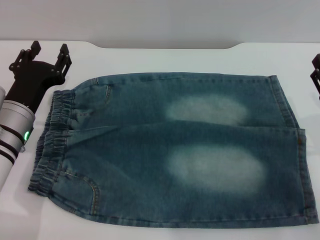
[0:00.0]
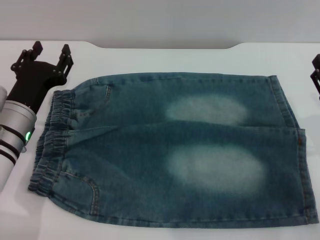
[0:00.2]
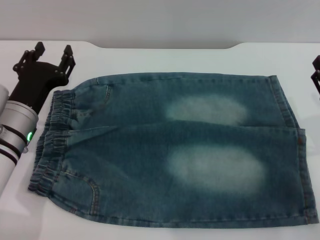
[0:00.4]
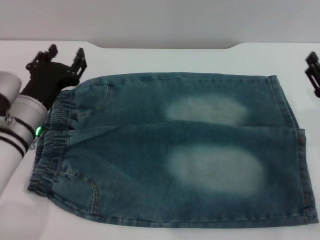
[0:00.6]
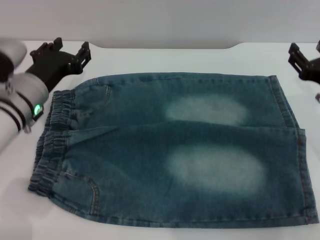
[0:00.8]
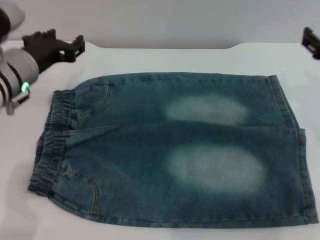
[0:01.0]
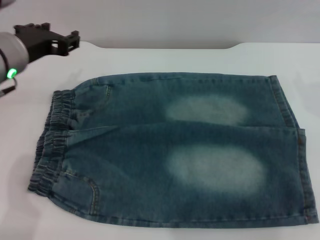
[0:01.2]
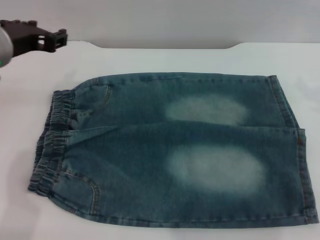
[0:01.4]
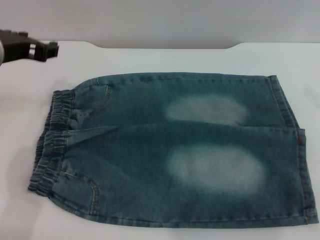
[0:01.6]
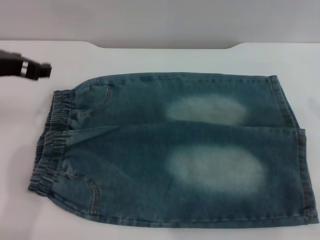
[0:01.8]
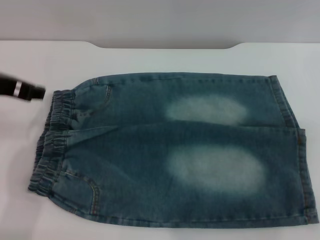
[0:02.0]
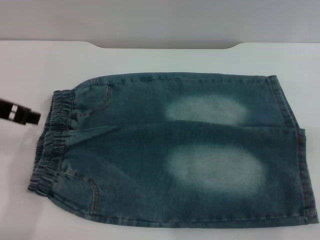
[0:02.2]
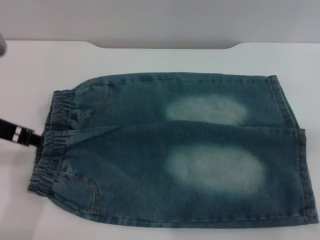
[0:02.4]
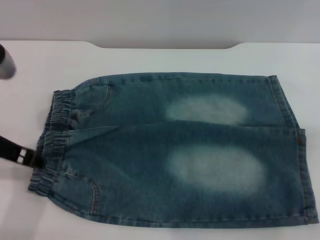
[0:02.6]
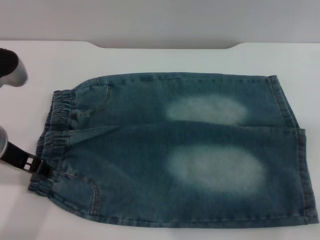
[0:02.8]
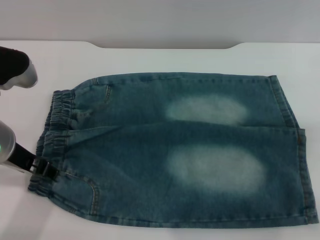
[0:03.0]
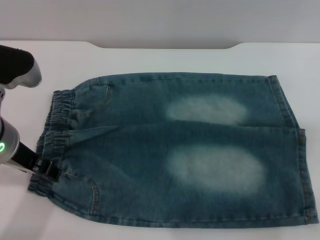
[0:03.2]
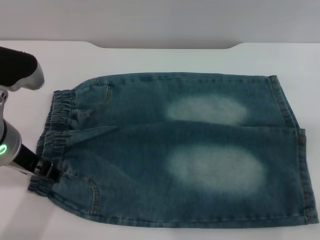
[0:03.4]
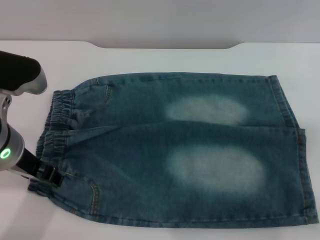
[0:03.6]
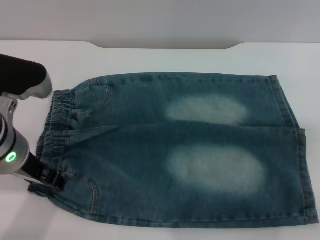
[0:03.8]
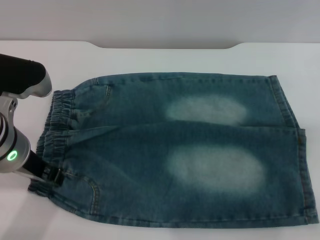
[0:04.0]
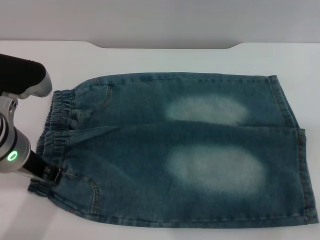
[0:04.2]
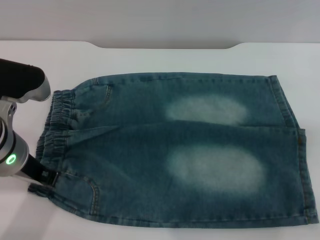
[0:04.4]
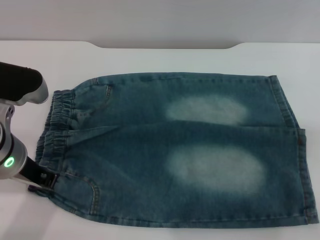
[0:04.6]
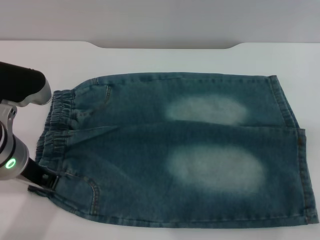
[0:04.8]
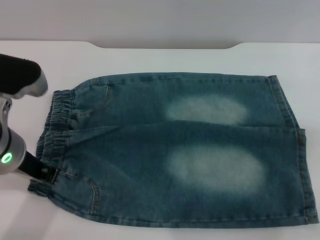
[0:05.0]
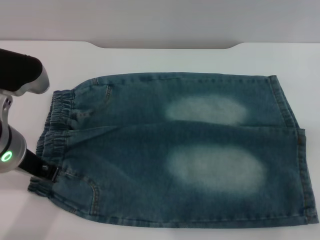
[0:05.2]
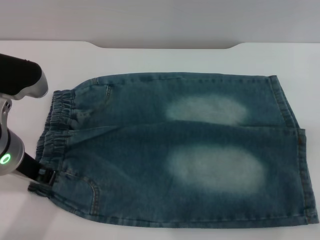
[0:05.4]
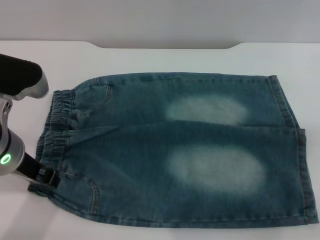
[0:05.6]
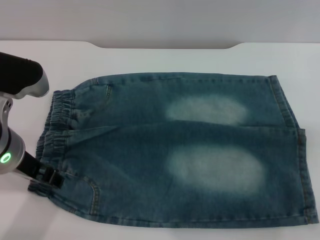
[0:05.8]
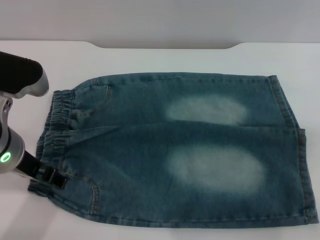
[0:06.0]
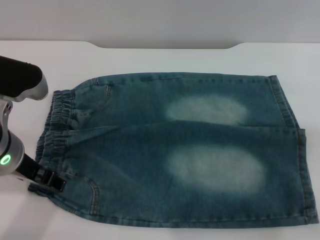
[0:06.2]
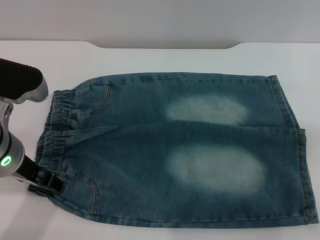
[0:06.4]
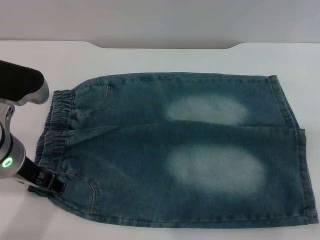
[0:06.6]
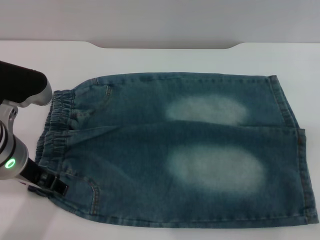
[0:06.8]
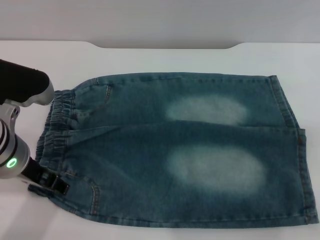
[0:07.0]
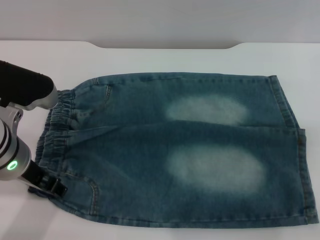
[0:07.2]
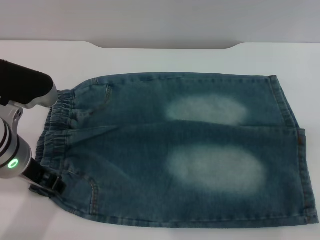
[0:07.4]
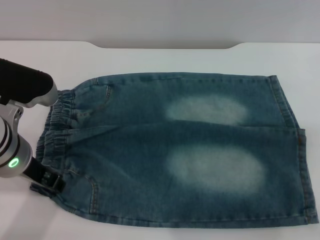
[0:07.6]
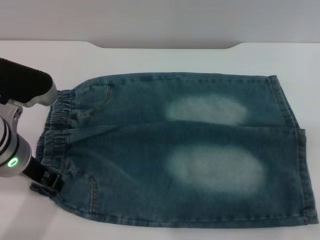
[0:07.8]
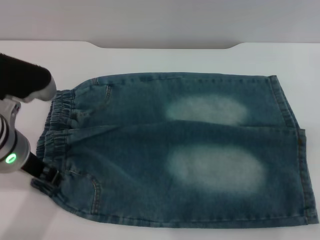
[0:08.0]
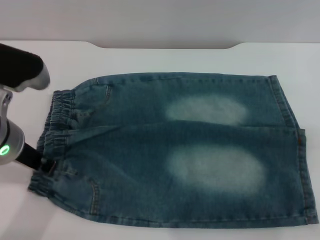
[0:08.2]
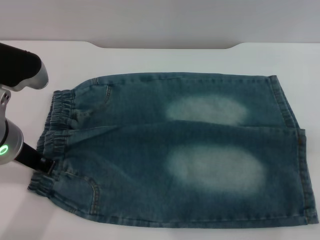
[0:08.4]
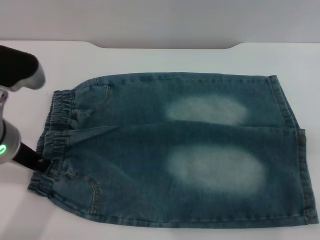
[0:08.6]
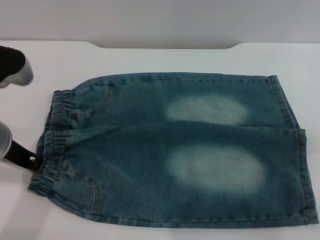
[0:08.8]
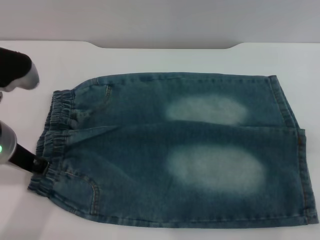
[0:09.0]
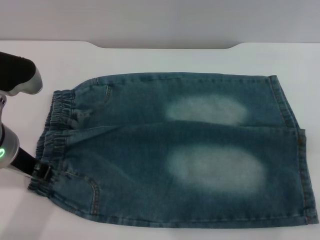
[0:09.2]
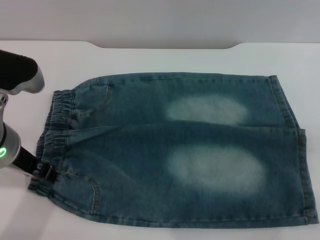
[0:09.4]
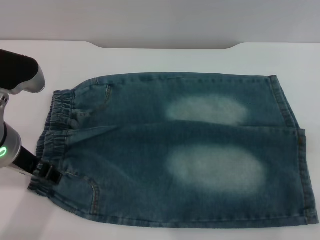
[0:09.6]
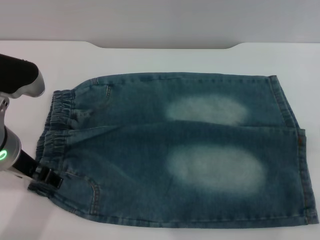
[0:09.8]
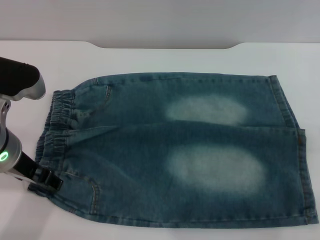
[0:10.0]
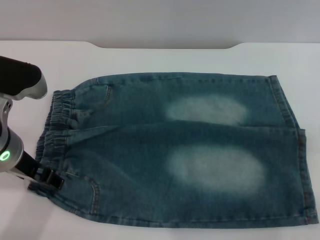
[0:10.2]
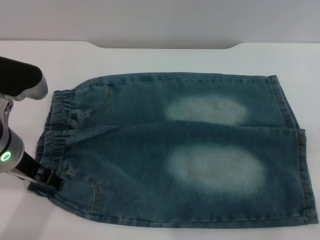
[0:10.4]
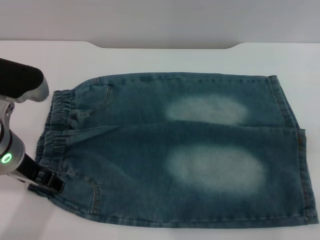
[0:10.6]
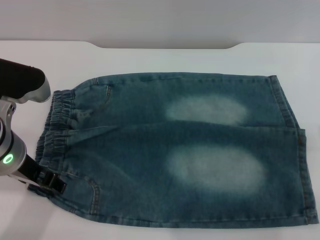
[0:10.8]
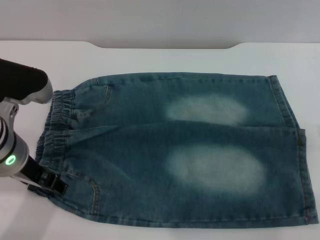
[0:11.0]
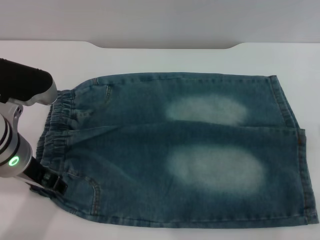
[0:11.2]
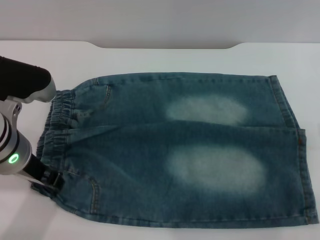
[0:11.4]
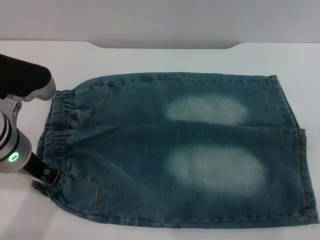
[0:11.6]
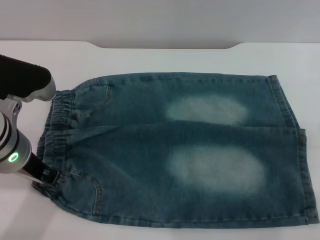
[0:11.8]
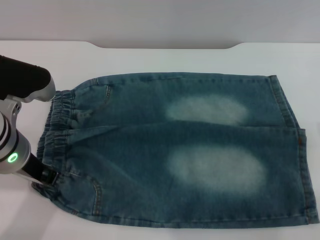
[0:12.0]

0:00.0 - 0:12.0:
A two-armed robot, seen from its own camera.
0:00.0 - 0:01.6: The left gripper shifts roughly 15 cm upward.
0:01.6 - 0:03.0: The left gripper heads backward, covering approximately 5 cm.
0:03.0 - 0:04.4: The left gripper closes its fingers.
0:04.4 - 0:06.0: The left gripper opens its fingers.
0:06.0 - 0:07.6: The grippers stay close to where they were, moving slightly.
0:07.6 - 0:09.0: The left gripper closes up.
0:09.0 - 0:10.4: The left gripper opens its fingers.
0:10.4 - 0:12.0: The left gripper closes up.

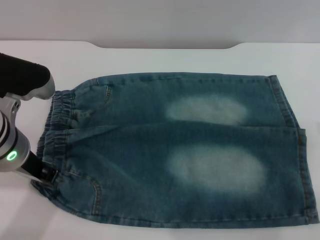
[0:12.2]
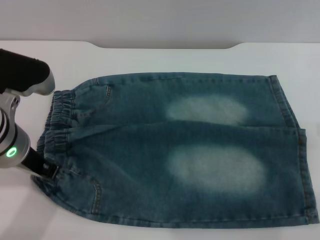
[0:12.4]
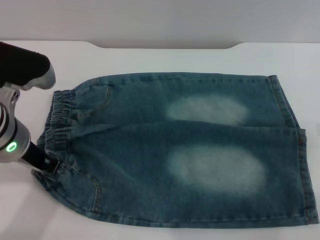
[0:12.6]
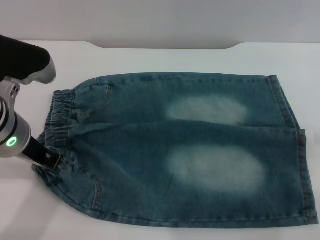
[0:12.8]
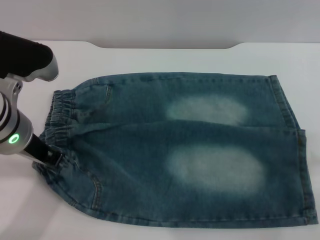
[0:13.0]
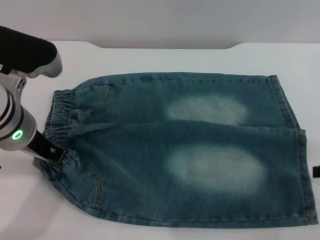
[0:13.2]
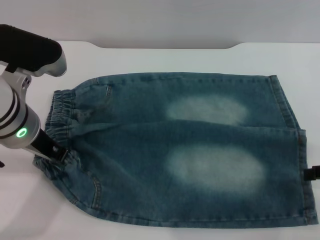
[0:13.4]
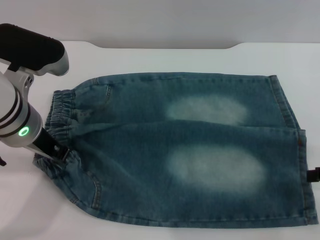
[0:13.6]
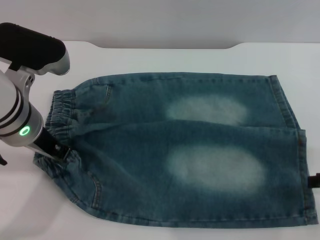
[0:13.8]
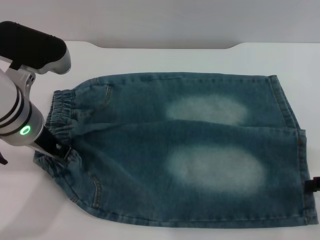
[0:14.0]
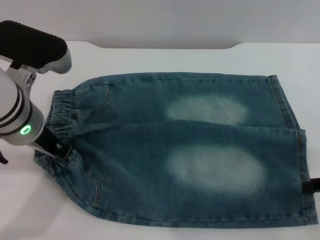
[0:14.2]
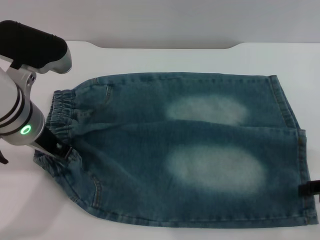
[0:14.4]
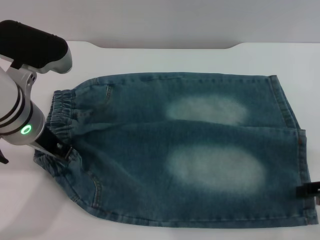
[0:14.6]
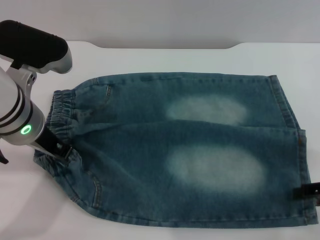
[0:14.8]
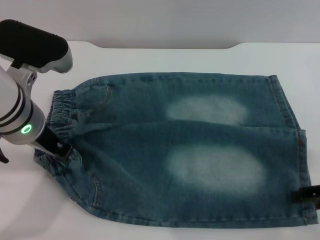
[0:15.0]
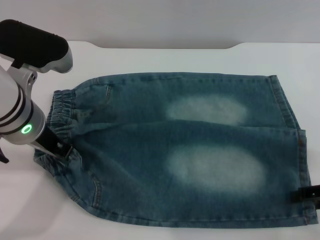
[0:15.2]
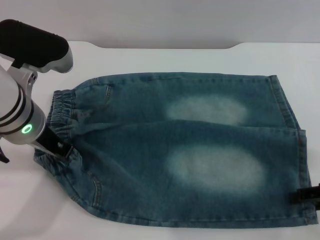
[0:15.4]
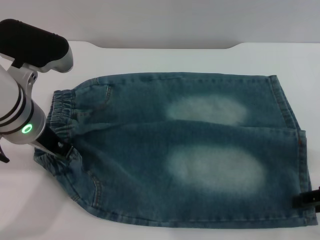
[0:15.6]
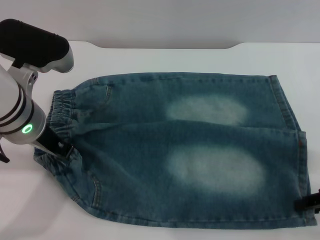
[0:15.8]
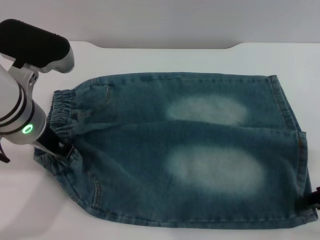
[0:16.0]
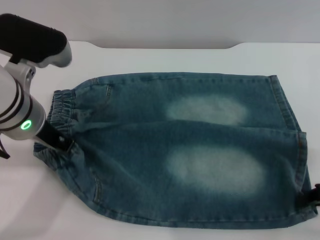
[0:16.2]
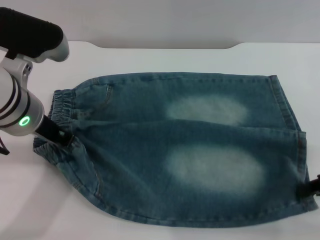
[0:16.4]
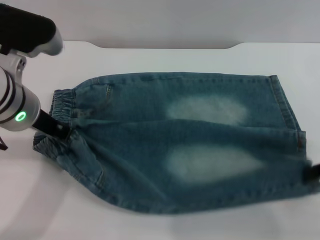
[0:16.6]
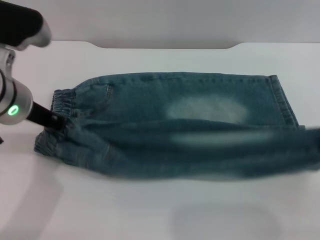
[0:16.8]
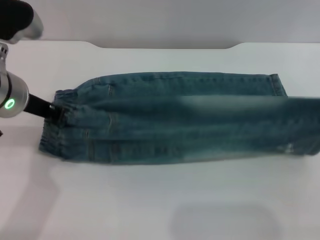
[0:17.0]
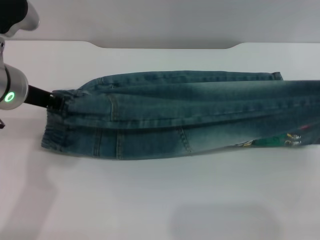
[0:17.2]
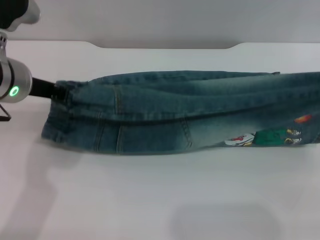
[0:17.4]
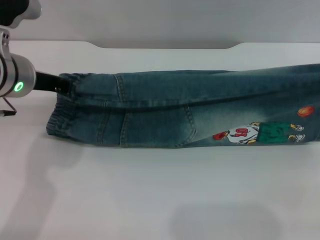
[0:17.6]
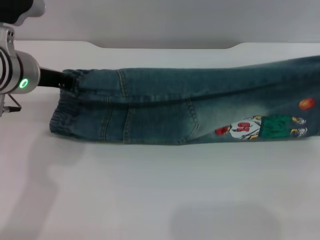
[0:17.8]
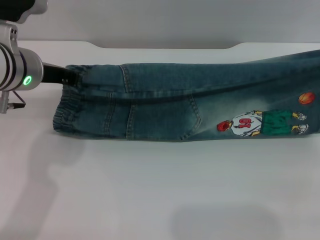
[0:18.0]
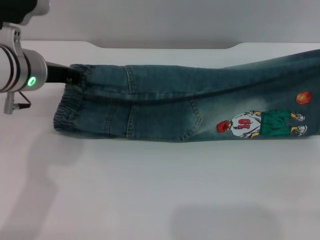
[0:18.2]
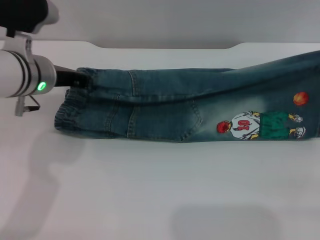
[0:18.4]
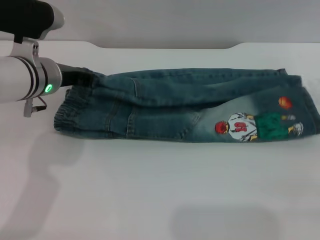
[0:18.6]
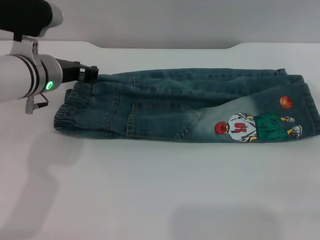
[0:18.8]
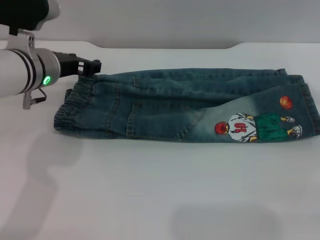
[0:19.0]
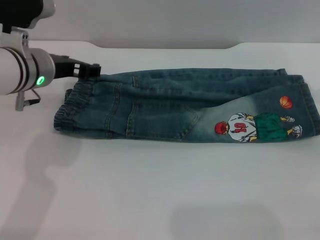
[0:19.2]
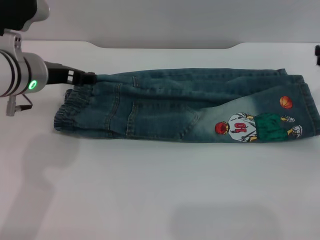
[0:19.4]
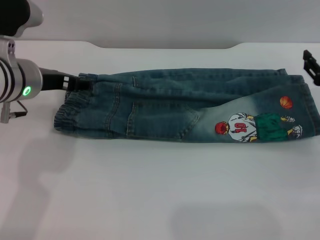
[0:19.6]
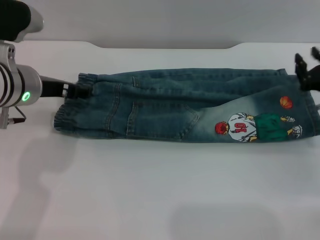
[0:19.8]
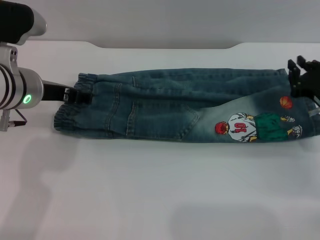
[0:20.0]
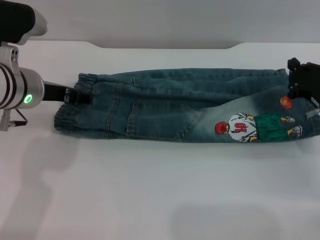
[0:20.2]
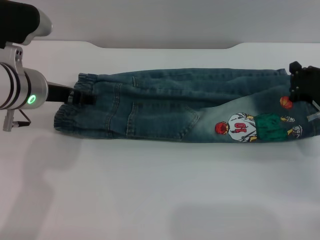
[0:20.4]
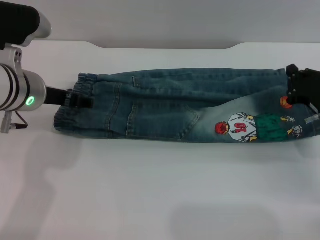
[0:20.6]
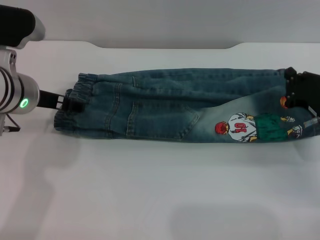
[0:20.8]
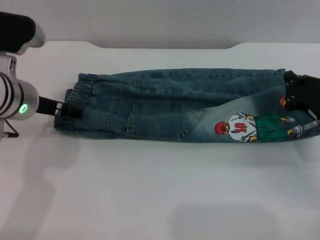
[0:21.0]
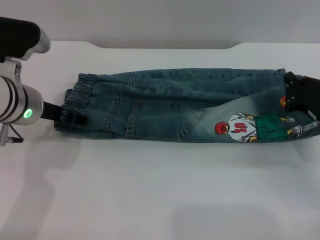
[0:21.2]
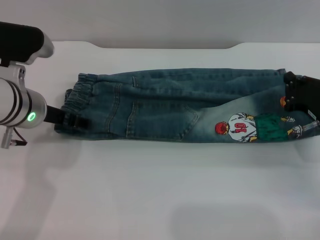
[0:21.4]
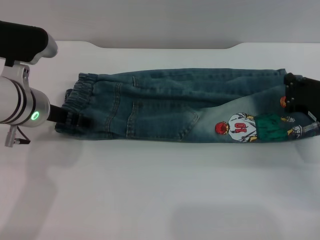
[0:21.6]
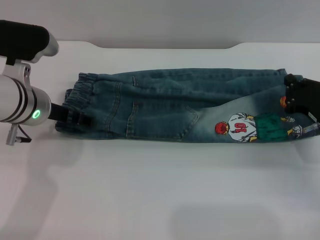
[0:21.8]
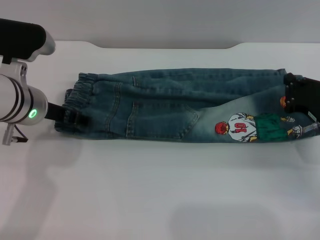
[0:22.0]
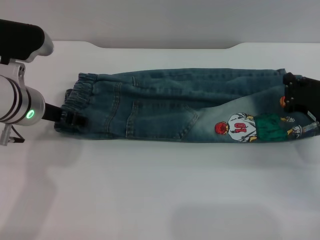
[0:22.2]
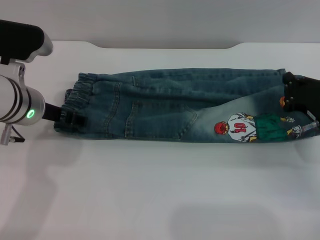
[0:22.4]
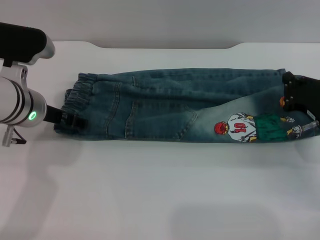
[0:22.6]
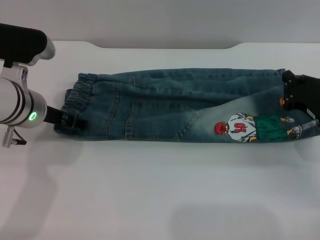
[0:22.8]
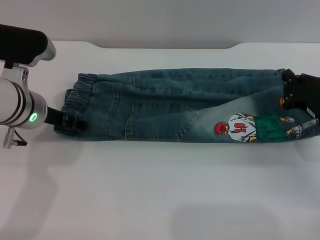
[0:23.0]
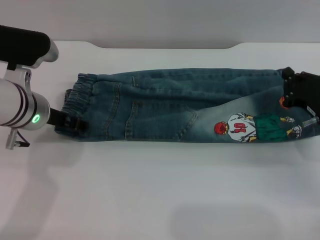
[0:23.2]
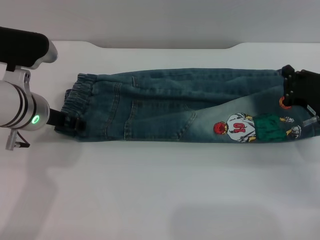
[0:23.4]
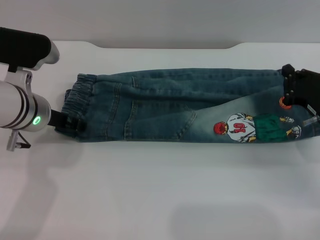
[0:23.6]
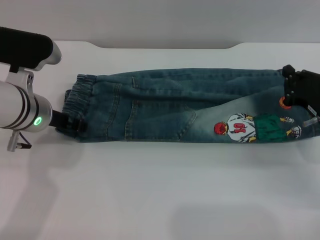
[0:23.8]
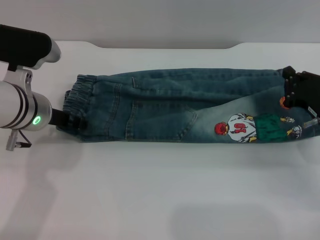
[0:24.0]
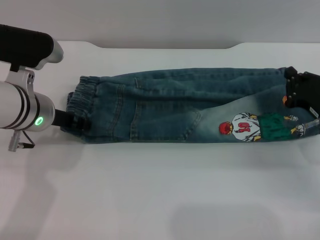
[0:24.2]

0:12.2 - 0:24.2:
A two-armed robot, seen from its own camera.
Step, 0:12.2 - 0:20.0: Fold the bottom of the pants upward with both grippers.
0:12.2 - 0:13.8: The right gripper is displaced downward by some 5 cm.
0:13.8 - 0:15.2: There are only small adjustments of the grippers.
0:15.2 - 0:16.6: The right gripper closes its fingers.
0:16.6 - 0:18.2: The left gripper moves approximately 5 cm; the right gripper travels forward by approximately 10 cm.
0:18.2 - 0:19.8: The left gripper opens up; the right gripper goes some 15 cm downward and to the left, and opens up.
0:19.8 - 0:21.2: The right gripper closes.
0:21.2 - 0:22.6: The grippers stay close to where they were, moving slightly.
0:22.6 - 0:24.2: The left gripper closes.
